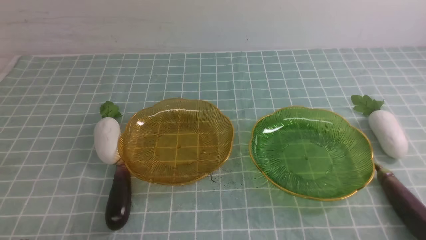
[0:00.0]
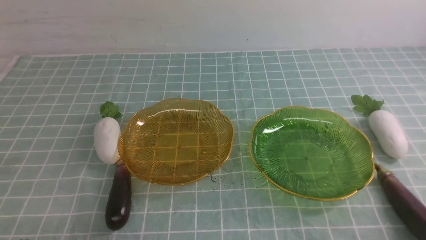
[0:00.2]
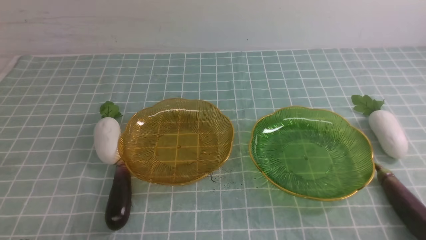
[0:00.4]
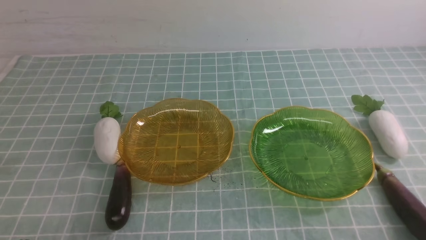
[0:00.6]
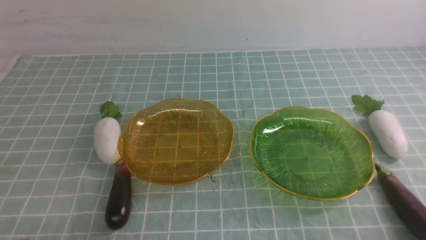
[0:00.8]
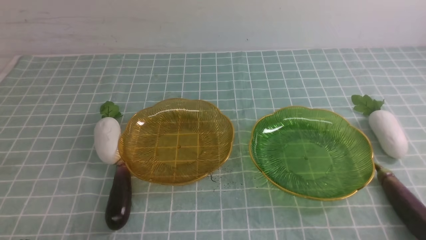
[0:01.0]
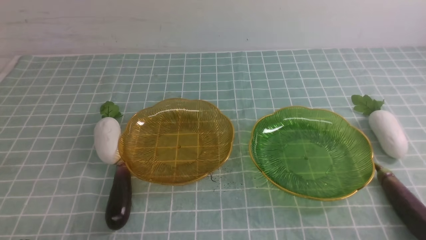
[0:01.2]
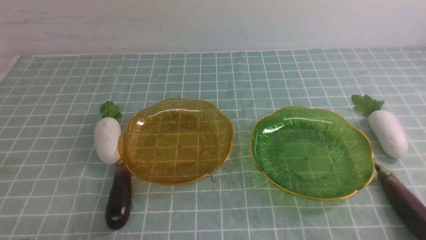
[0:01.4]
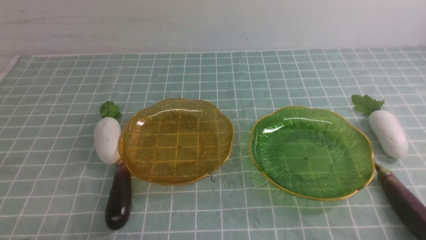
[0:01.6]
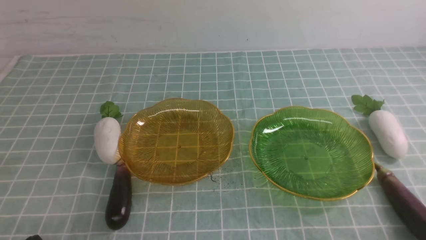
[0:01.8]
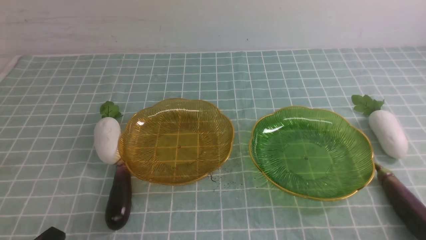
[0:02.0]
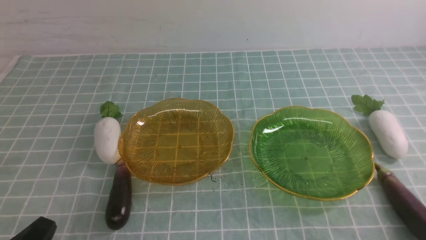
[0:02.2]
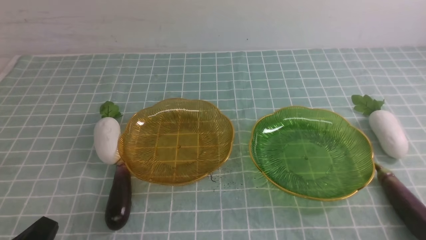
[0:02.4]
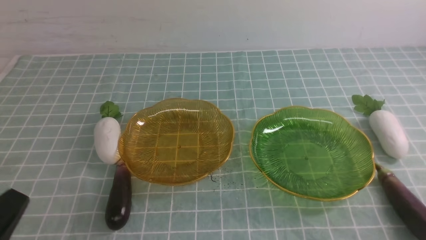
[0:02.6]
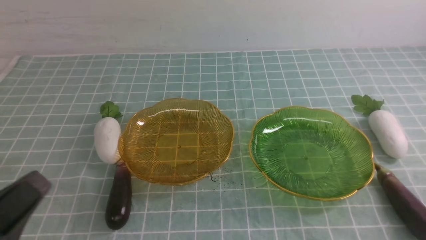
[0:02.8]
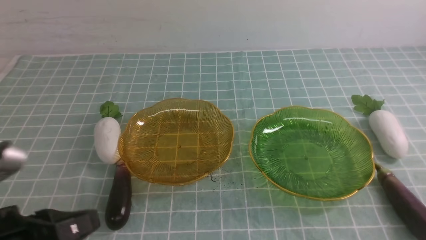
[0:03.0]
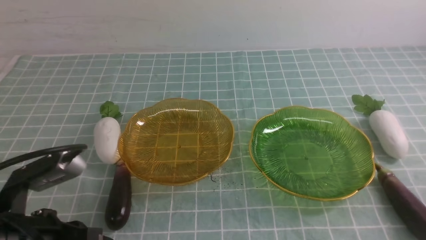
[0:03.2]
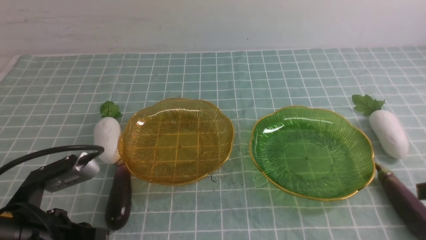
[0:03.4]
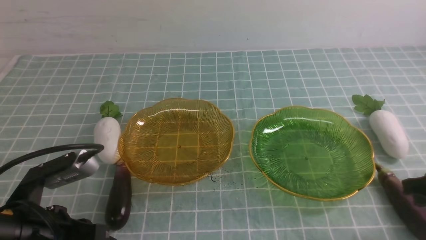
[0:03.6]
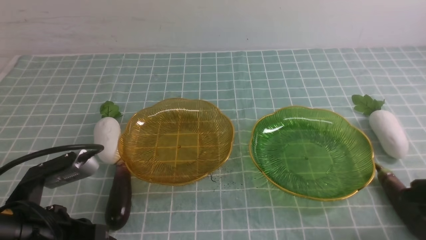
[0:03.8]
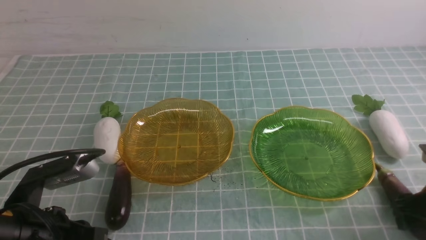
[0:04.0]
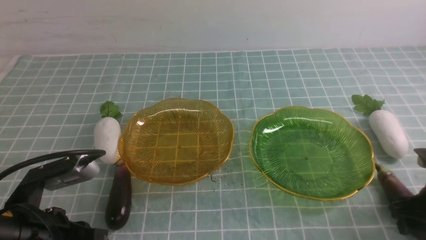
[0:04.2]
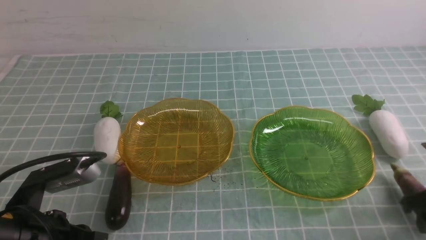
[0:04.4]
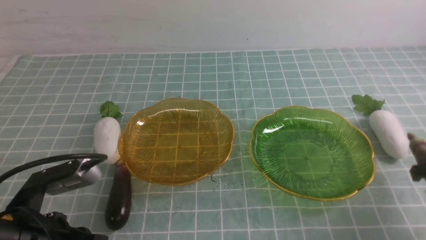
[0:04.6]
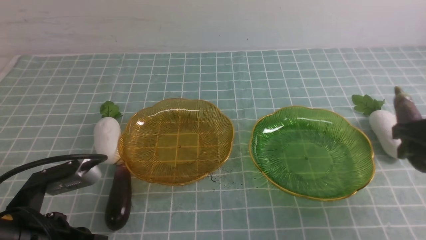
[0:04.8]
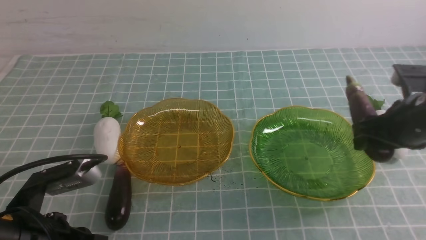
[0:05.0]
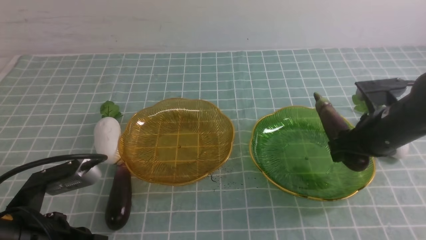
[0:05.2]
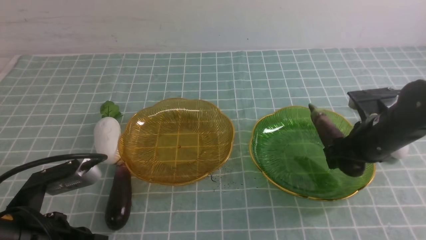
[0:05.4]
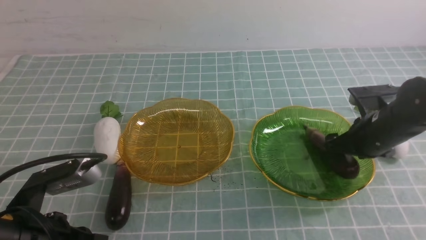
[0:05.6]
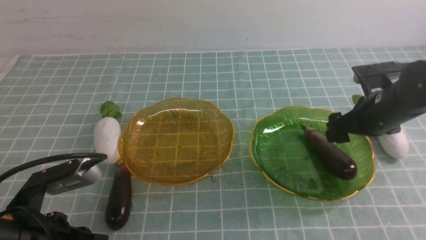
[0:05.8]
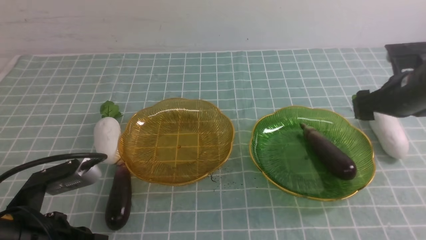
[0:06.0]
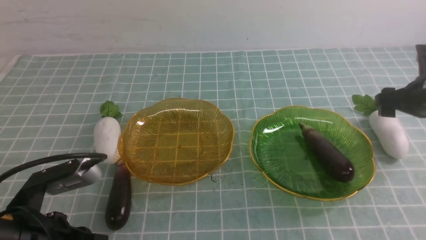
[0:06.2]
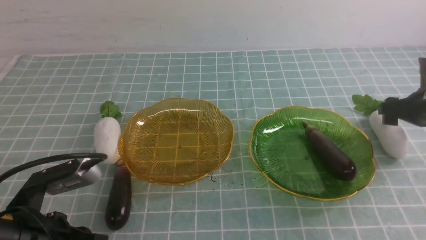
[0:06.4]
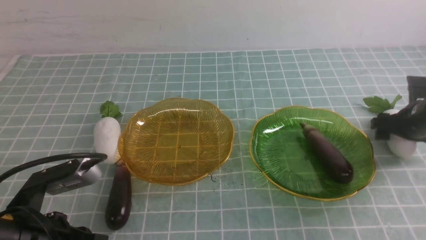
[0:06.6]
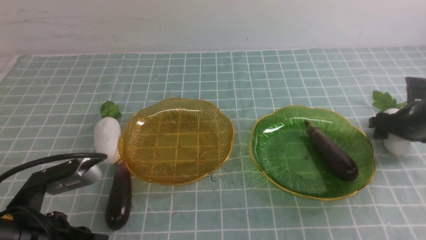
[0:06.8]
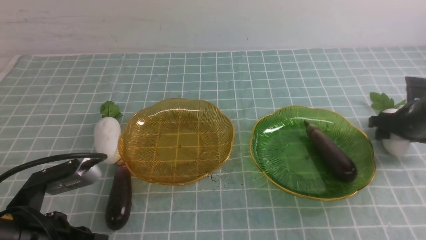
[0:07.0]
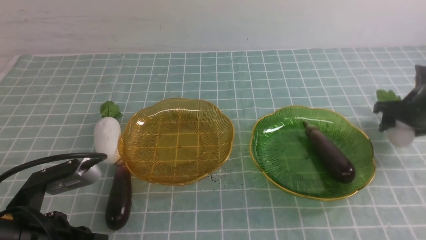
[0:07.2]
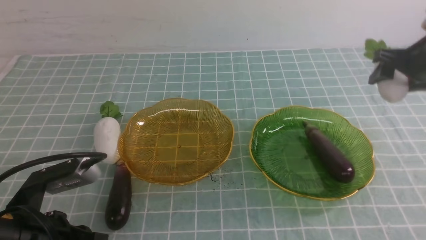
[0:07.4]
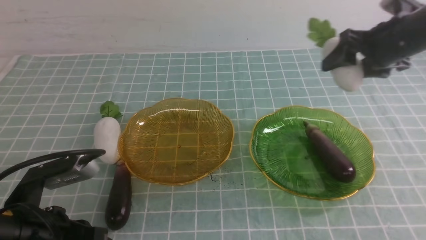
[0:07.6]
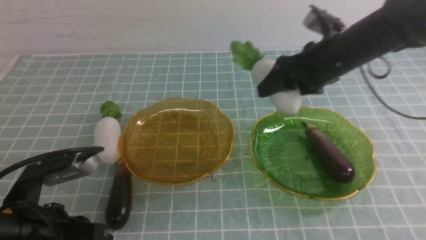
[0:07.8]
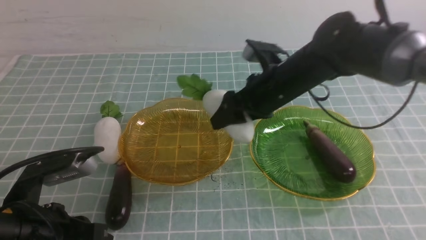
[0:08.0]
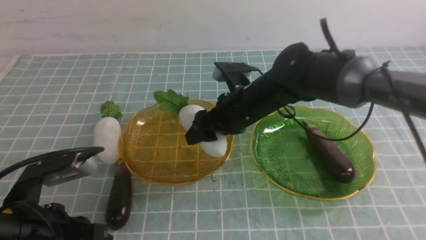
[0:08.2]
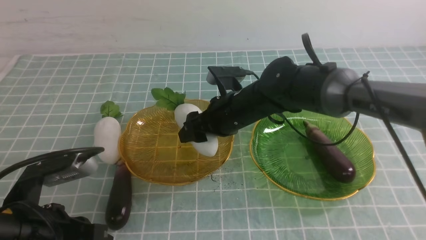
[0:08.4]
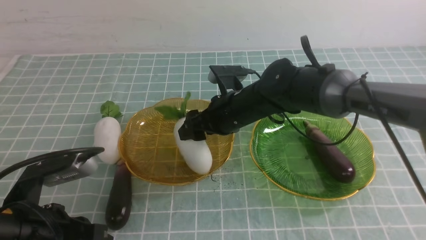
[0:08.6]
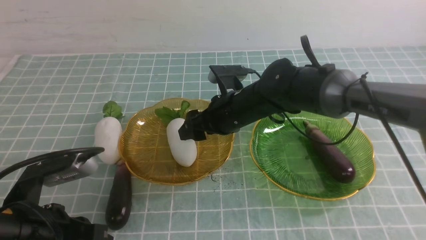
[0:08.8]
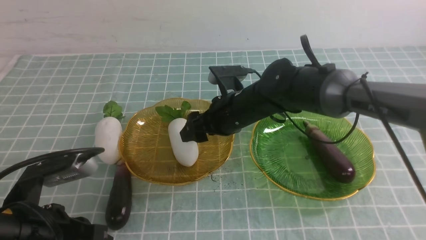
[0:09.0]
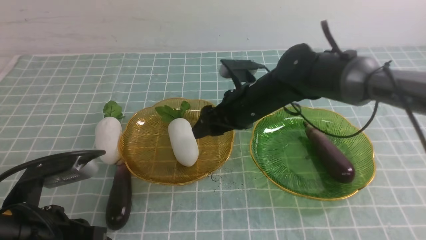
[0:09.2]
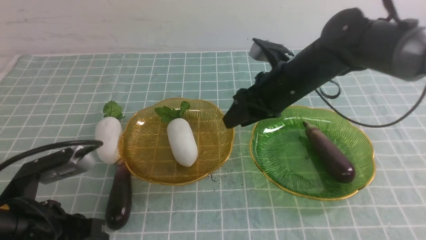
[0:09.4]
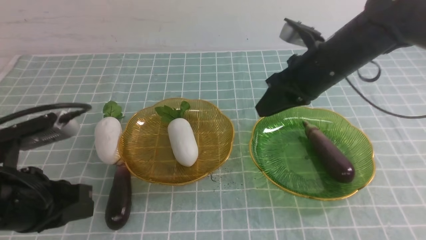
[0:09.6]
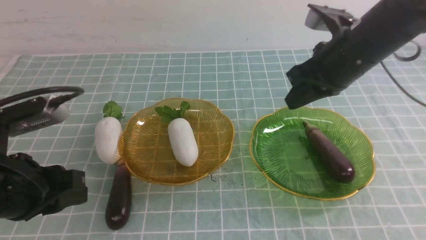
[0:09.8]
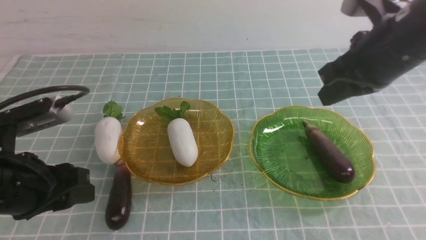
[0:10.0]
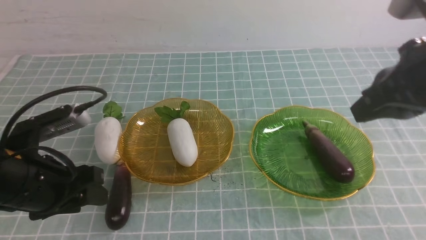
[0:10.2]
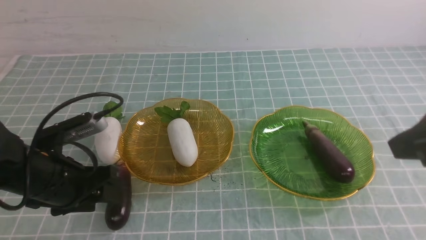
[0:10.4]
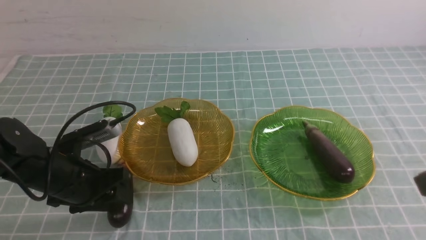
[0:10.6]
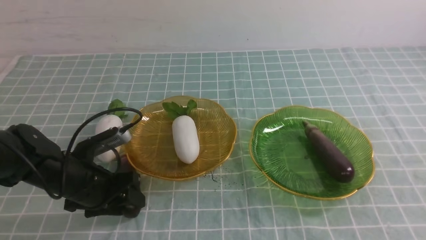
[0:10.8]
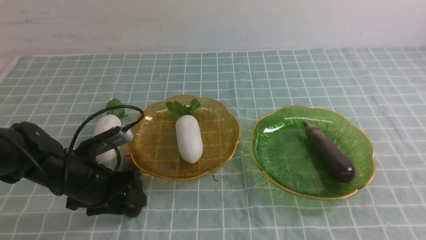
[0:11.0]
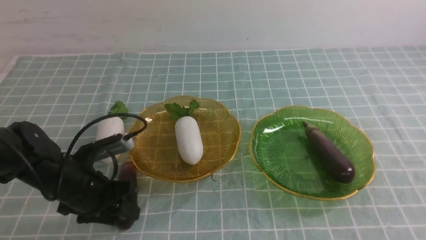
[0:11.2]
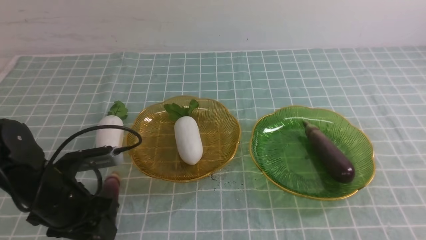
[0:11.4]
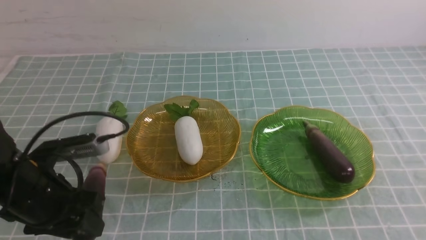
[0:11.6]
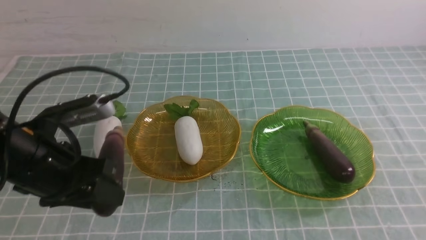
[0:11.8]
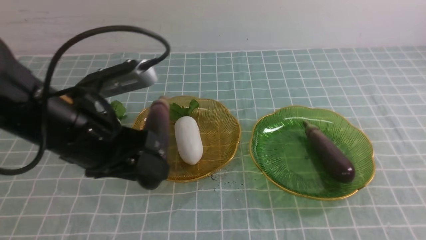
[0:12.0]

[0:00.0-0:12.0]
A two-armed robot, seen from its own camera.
Step, 0:00.0 to 0:05.6: use the right arm to grab an eggplant and put it into the right plate.
Step, 0:06.0 to 0:08.6: use the right arm to grab a radish and put it into the left plate.
0:01.6 to 0:03.0: The left gripper is displaced upward by roughly 10 cm.
0:03.0 to 0:04.4: The right gripper travels forward and downward by roughly 20 cm, and opens up; the left gripper is displaced forward by about 5 cm.
0:04.4 to 0:06.0: The right gripper is displaced forward by about 10 cm.
0:06.0 to 0:07.6: The right gripper heads upward, covering approximately 5 cm.
0:07.6 to 0:09.0: The right gripper heads to the left, covering about 25 cm.
0:09.0 to 0:10.4: The left gripper shifts approximately 10 cm forward, and opens. The right gripper shifts roughly 35 cm backward, to the right and upward, and closes its fingers.
0:10.4 to 0:12.0: The left gripper is displaced upward and to the right by some 10 cm; the right gripper moves backward, approximately 5 cm.

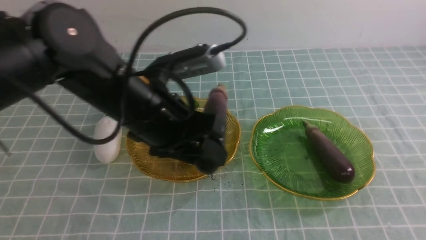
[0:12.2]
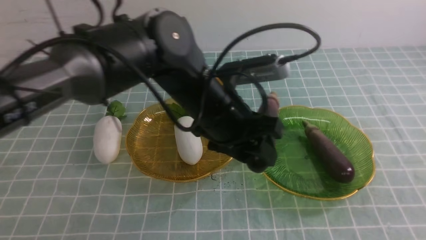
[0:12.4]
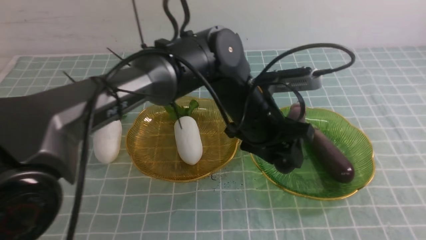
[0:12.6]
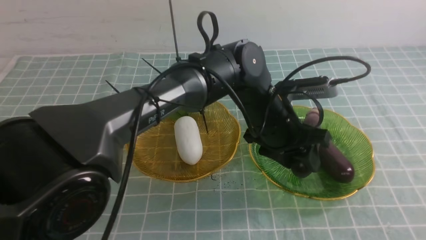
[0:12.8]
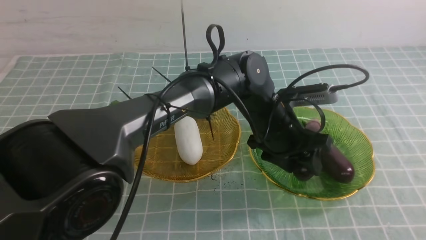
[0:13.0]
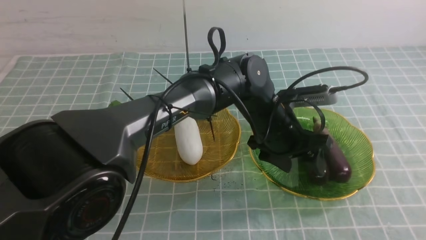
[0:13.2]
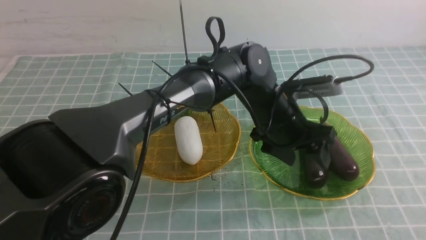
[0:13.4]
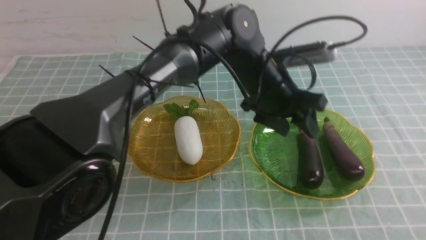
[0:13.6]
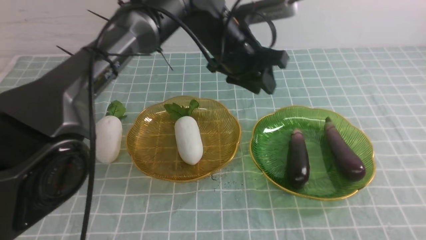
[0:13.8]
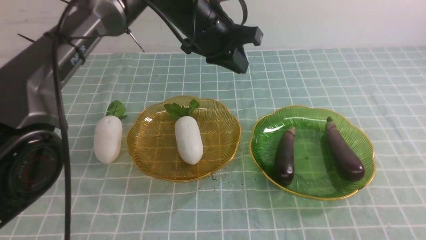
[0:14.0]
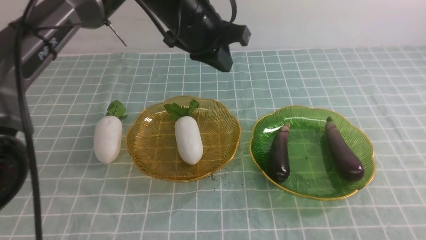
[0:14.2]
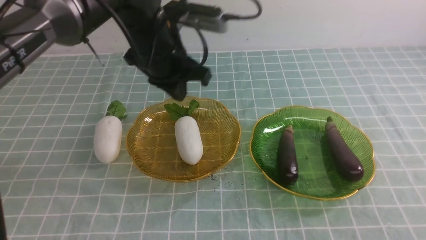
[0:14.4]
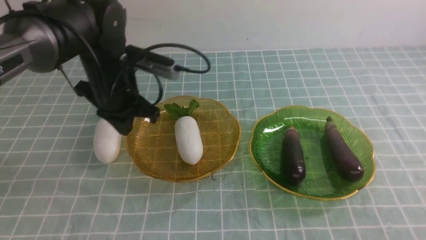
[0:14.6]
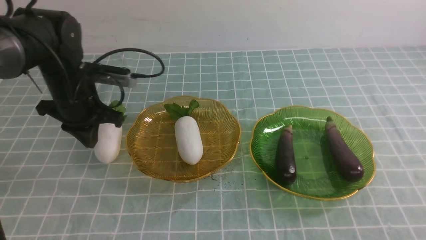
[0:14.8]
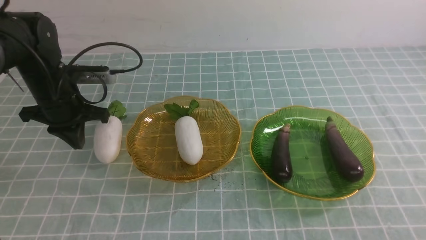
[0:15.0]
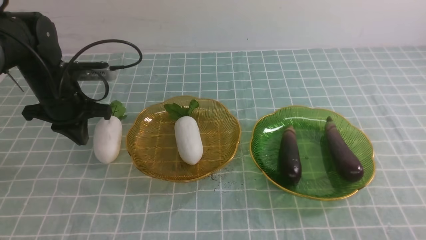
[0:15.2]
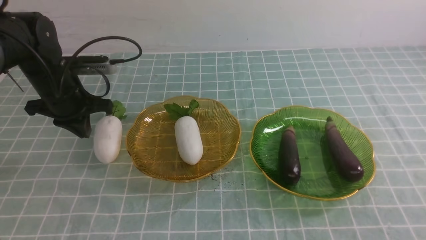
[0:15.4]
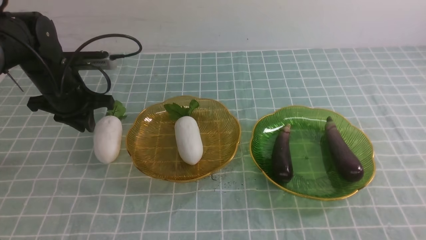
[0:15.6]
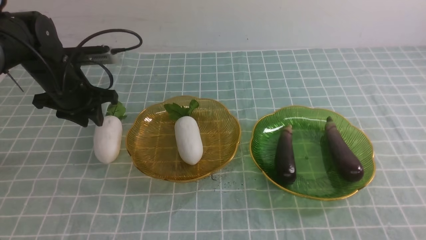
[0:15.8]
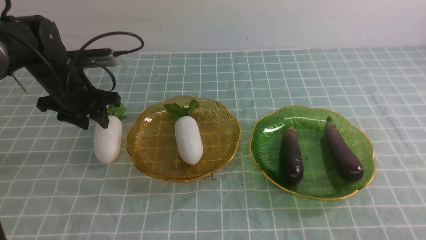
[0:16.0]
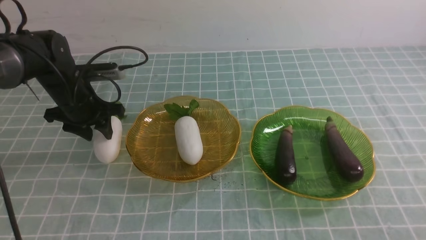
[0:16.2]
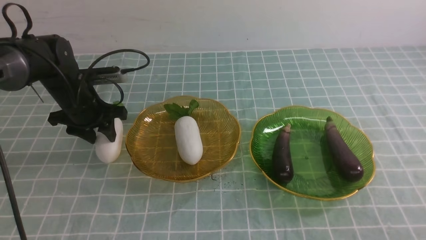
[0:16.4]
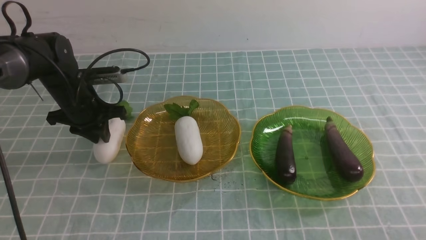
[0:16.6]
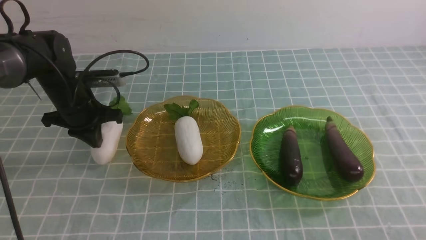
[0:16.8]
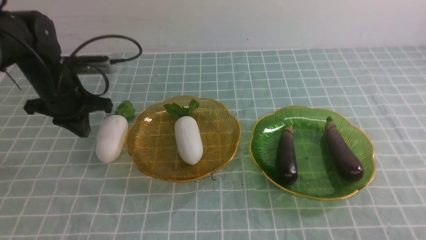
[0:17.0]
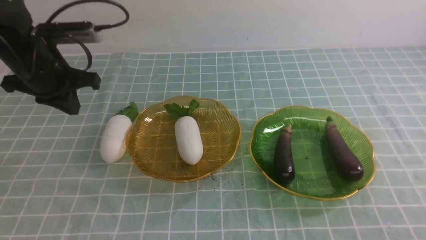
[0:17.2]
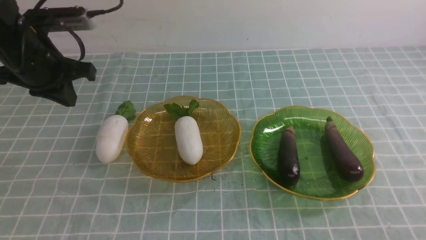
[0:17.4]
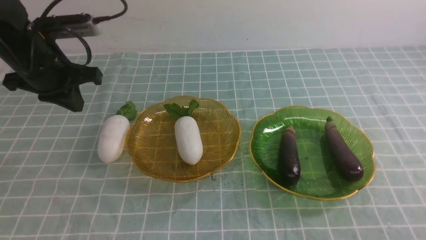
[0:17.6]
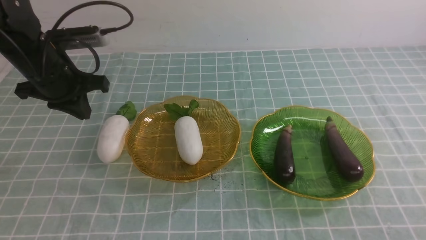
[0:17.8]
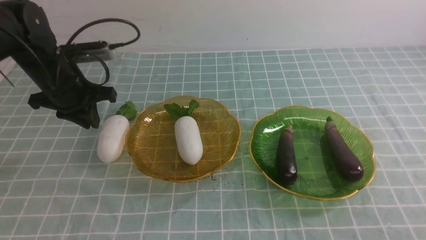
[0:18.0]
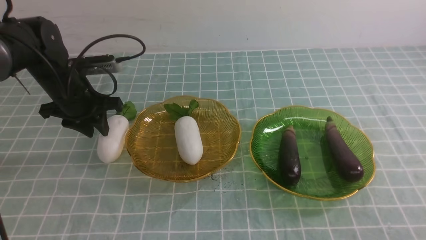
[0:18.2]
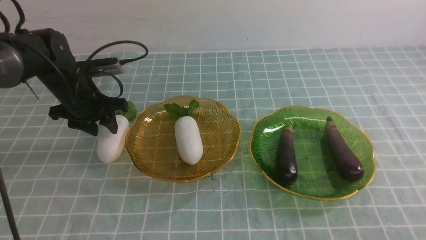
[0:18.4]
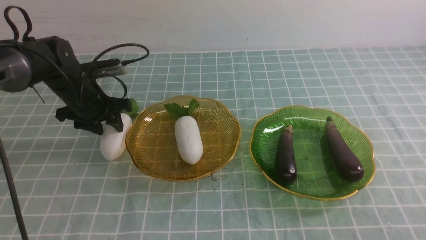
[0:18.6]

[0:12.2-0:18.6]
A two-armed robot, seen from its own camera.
0:12.2 to 0:13.8: The left gripper travels forward and to the right by approximately 20 cm; the right gripper shifts roughly 10 cm backward.
0:13.8 to 0:15.4: The left gripper is displaced to the left by roughly 30 cm, and closes up.
0:15.4 to 0:17.0: The left gripper opens and closes again.
0:17.0 to 0:18.6: The left gripper reaches approximately 10 cm upward, then returns, and opens its fingers.
